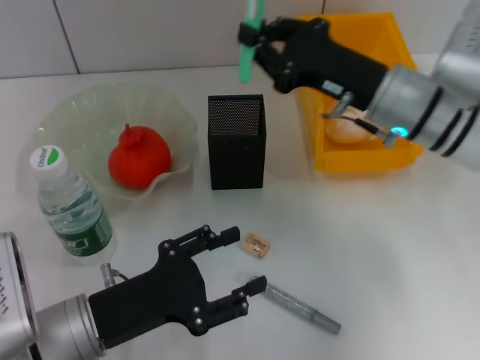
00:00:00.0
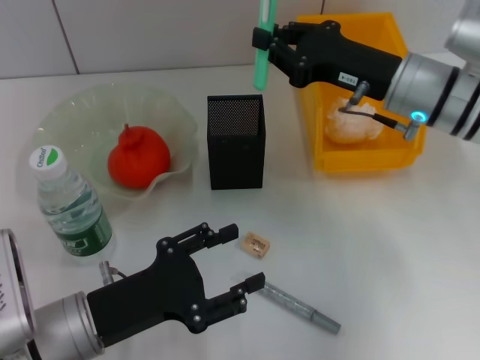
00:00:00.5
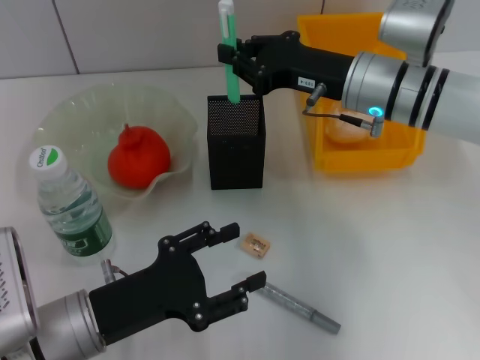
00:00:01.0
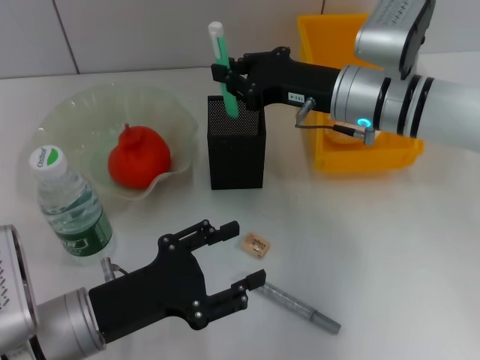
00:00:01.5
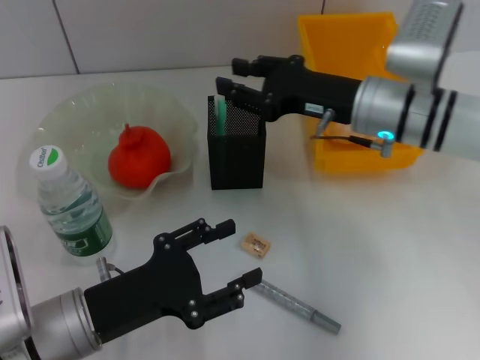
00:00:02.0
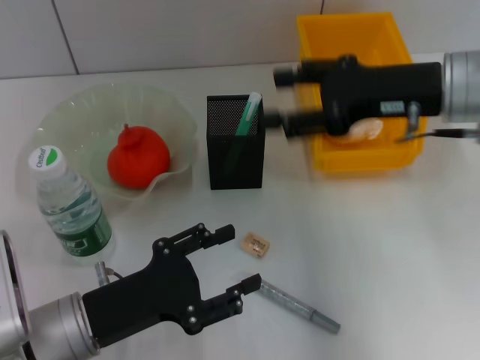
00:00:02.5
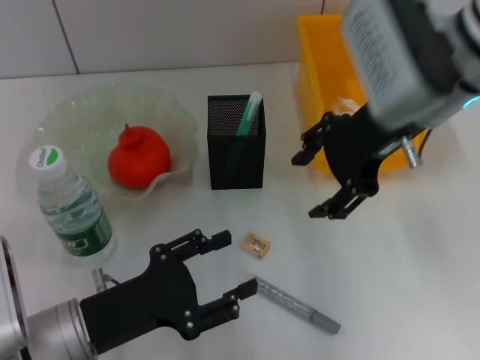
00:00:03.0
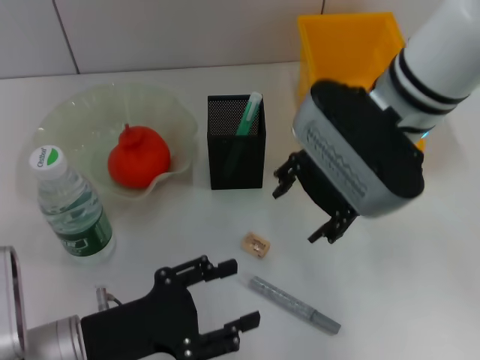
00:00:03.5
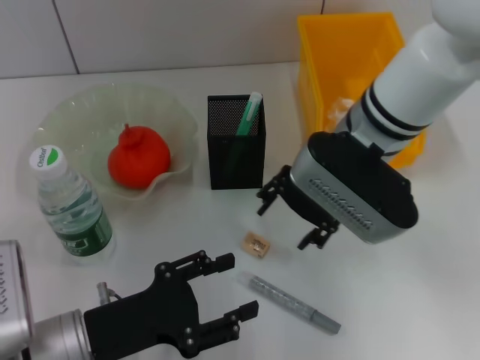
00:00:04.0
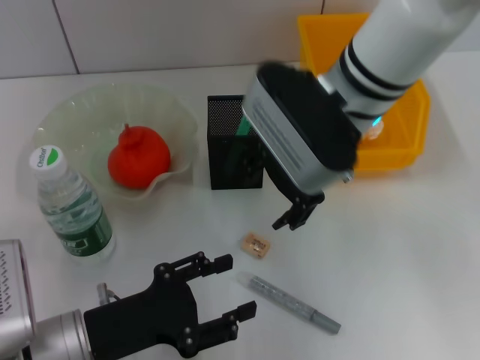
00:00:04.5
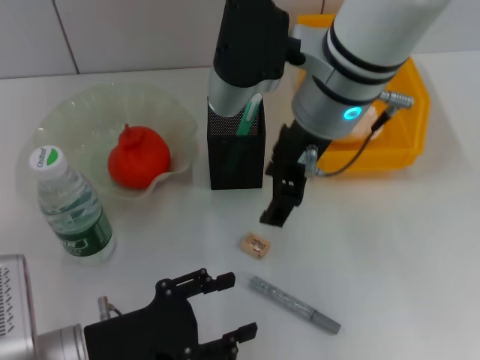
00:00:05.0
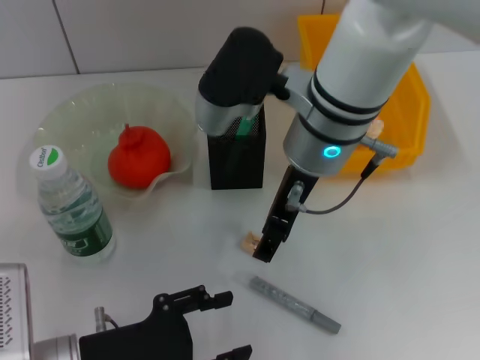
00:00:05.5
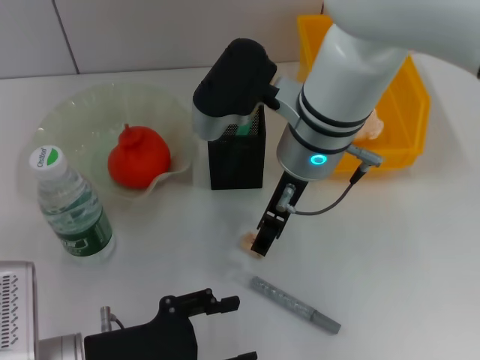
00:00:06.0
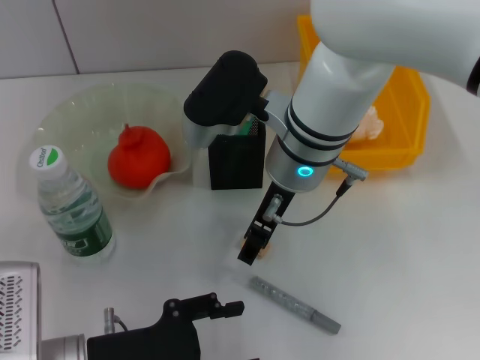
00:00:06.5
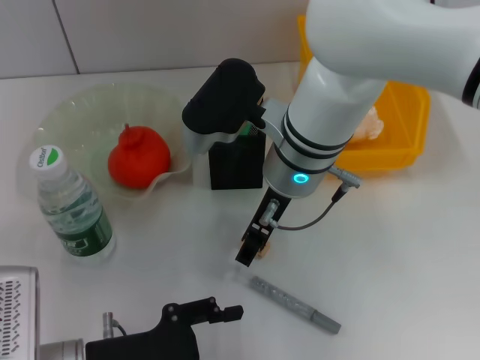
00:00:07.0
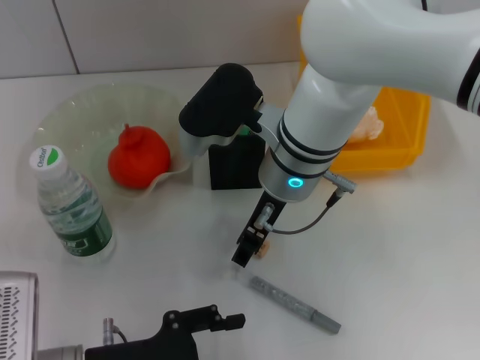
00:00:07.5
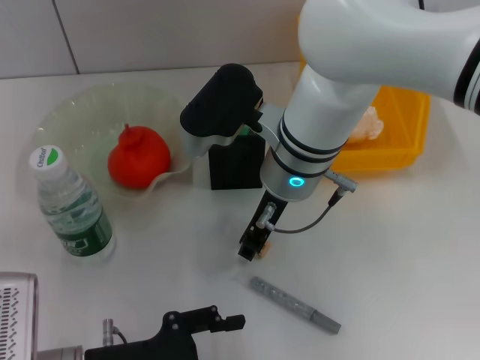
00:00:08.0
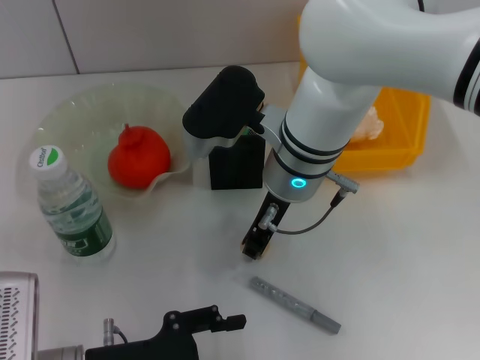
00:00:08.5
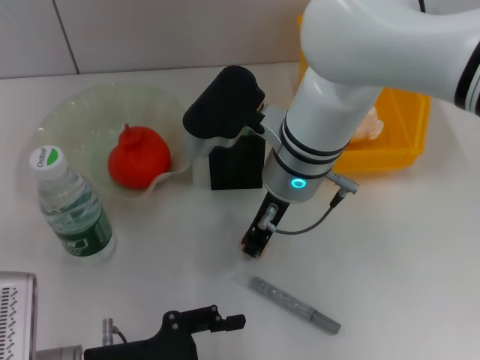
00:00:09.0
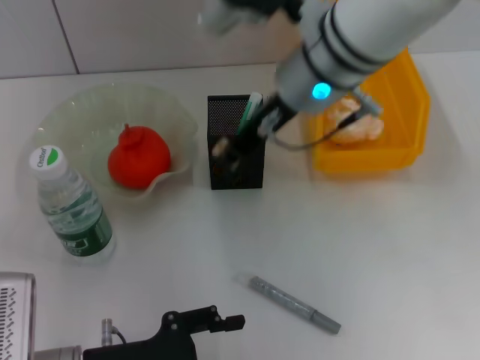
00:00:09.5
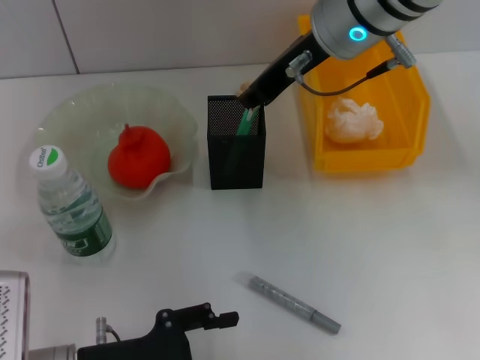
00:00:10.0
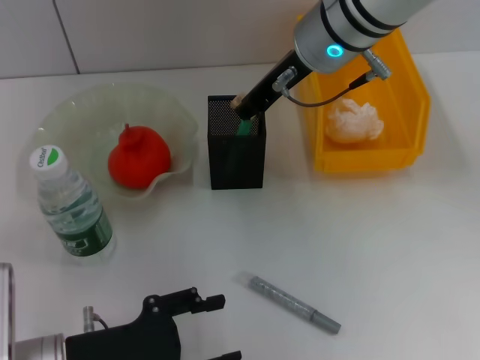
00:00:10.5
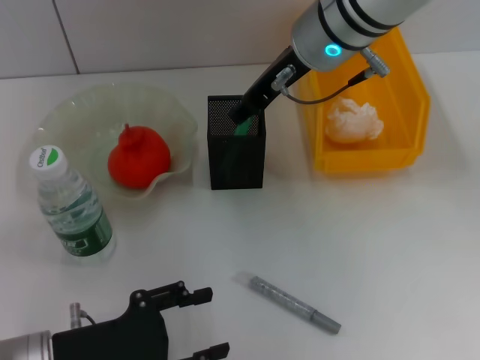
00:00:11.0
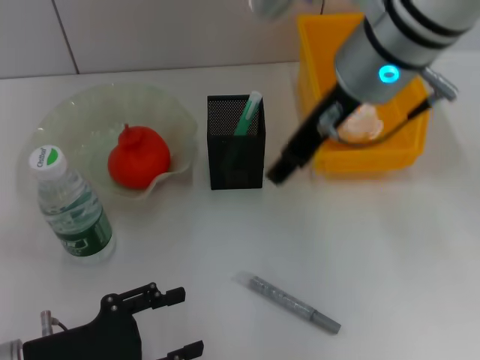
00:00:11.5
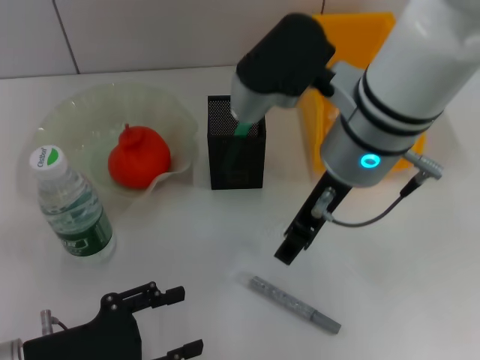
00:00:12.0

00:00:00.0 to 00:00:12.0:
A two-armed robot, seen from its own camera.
Step, 00:00:00.0 to 00:00:02.0: Place the blue utility knife into the pen holder with the right hand.
Step, 00:00:02.5 to 00:00:08.5: Grab the eraser with the right hand.
Step, 00:00:09.0 to 00:00:10.5: Put the eraser into the pen holder with the right hand.
00:00:00.0 to 00:00:02.0: The right gripper opens.
00:00:02.0 to 00:00:04.0: The right gripper heads to the left, covering about 5 cm, travels upward and back again, about 10 cm each way, and opens its fingers.
00:00:04.0 to 00:00:06.0: The right gripper moves to the left, approximately 5 cm.
00:00:06.0 to 00:00:08.0: The right gripper closes.
00:00:08.0 to 00:00:10.0: The right gripper heads upward and to the right, covering some 15 cm.
00:00:10.0 to 00:00:12.0: The right gripper is displaced backward by roughly 5 cm, and opens up.

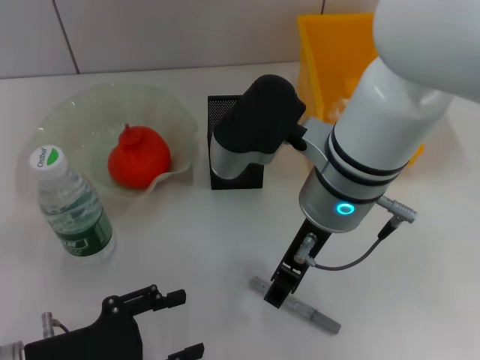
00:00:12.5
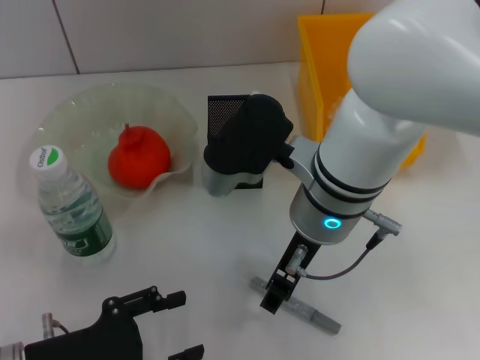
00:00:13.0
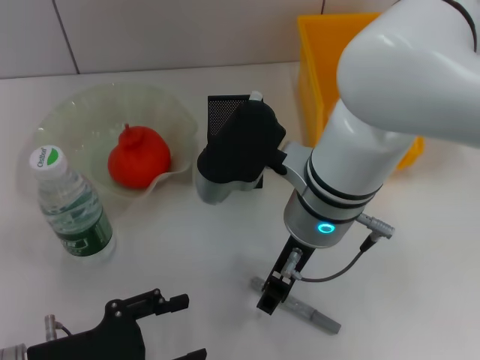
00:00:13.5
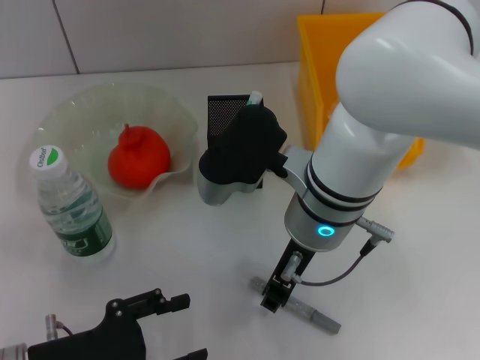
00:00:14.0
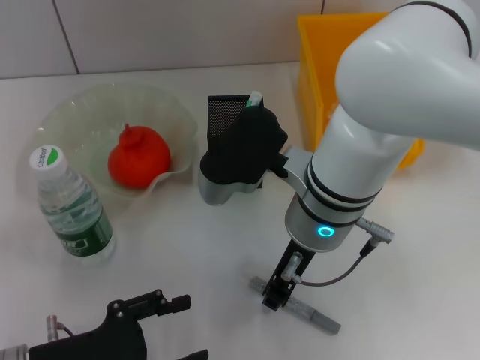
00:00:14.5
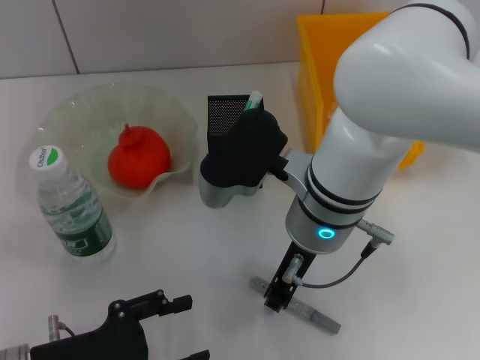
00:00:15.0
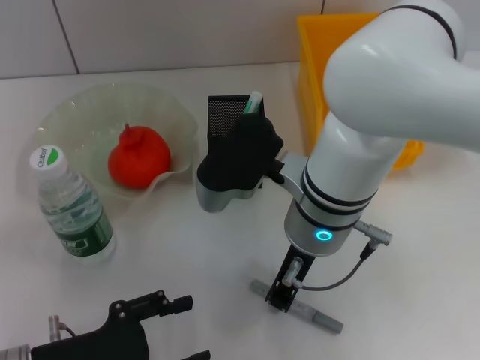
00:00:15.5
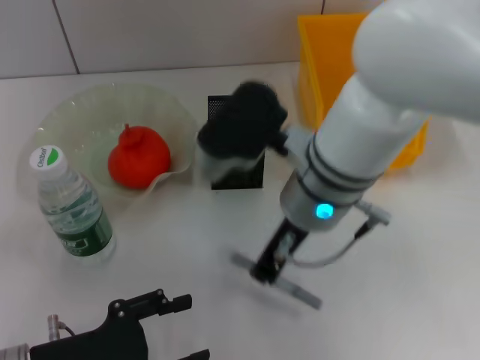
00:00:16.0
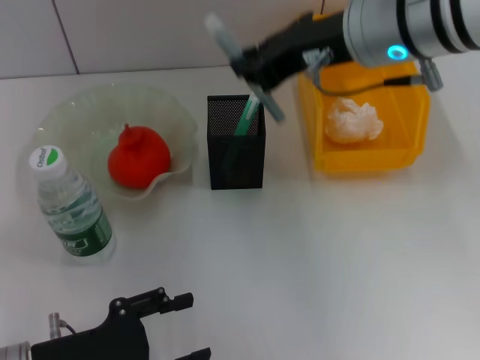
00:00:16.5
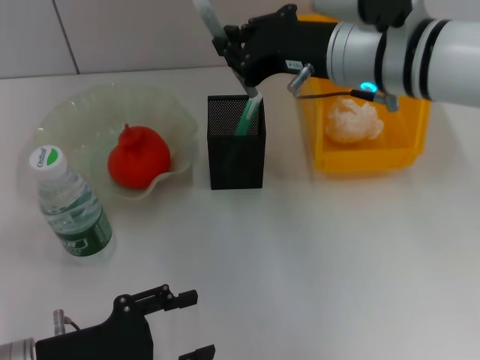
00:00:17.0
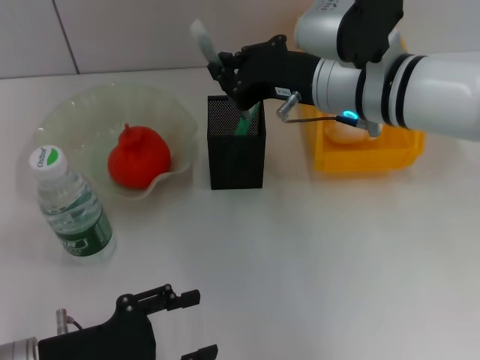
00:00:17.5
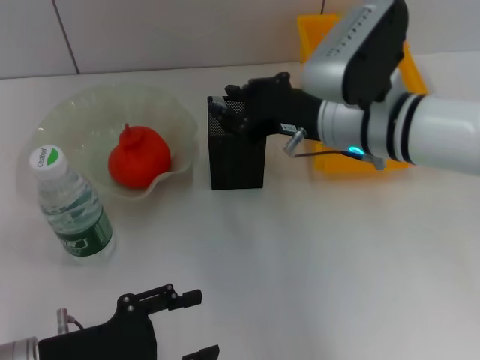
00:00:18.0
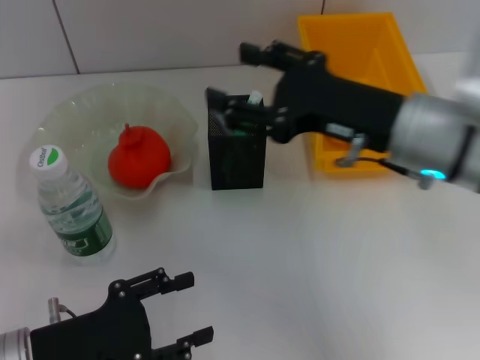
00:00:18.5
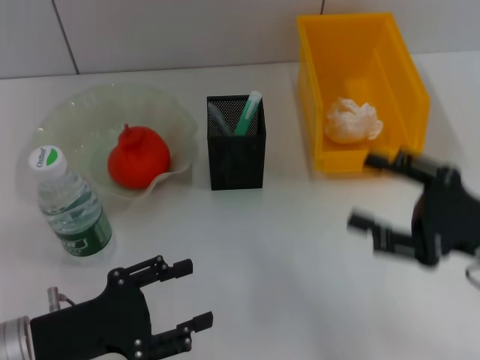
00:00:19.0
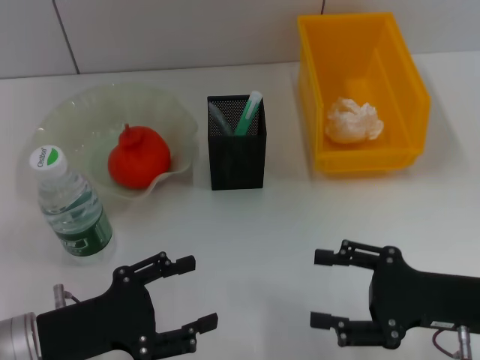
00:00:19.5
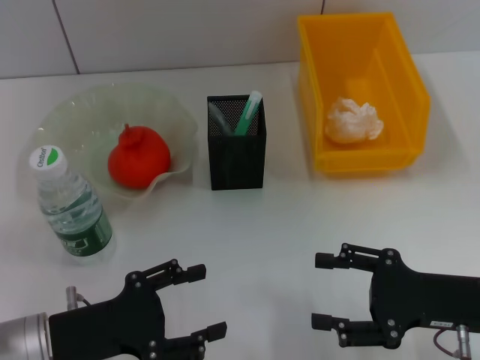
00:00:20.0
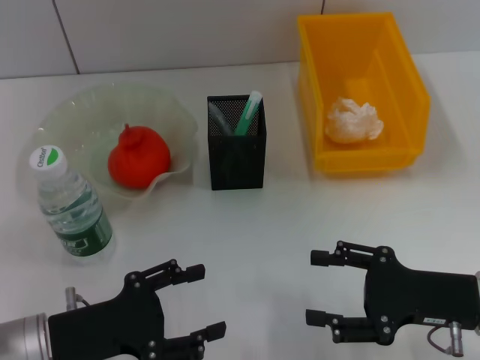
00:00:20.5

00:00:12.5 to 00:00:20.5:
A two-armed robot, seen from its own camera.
Step, 00:00:12.5 to 00:00:15.0: Grab the gray glue with the right hand.
Step, 00:00:15.5 to 00:00:18.0: Place the gray glue into the pen holder with the right hand.
00:00:12.5 to 00:00:14.5: The grippers make only small movements.
00:00:14.5 to 00:00:16.5: The right gripper travels upward and to the right by some 15 cm, and closes its fingers.
00:00:16.5 to 00:00:18.5: The right gripper shifts some 10 cm downward and backward, and opens up.
00:00:18.5 to 00:00:20.5: The right gripper goes approximately 15 cm downward, to the right and backward.
